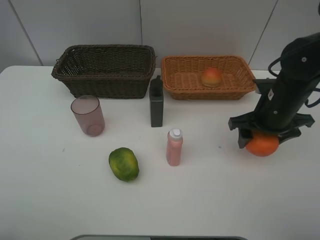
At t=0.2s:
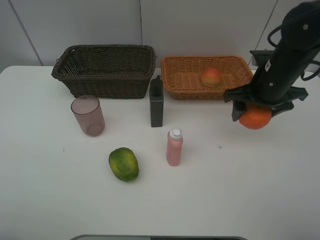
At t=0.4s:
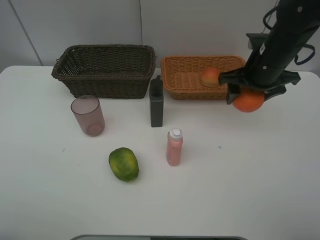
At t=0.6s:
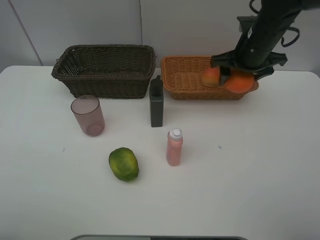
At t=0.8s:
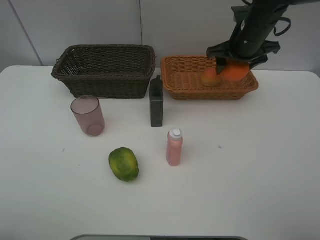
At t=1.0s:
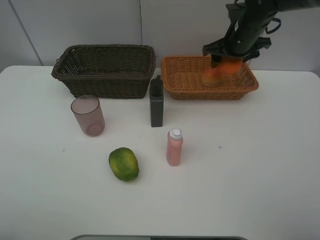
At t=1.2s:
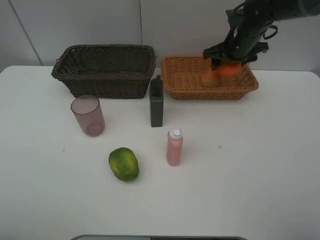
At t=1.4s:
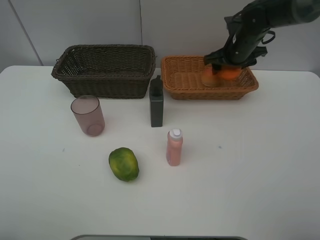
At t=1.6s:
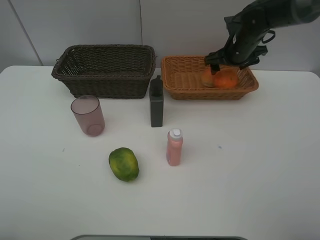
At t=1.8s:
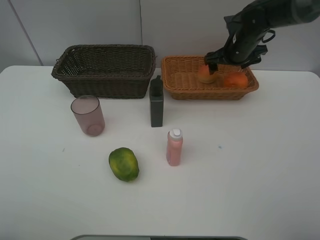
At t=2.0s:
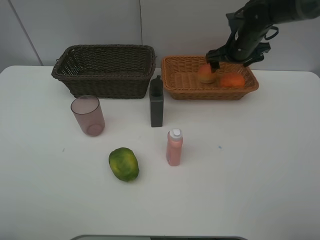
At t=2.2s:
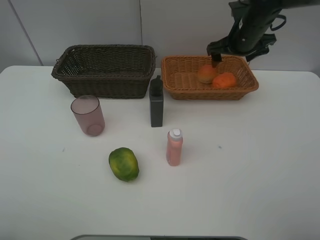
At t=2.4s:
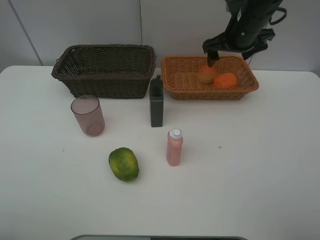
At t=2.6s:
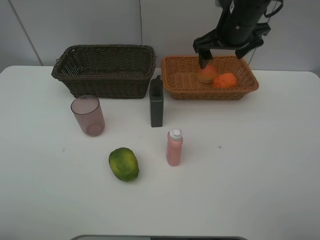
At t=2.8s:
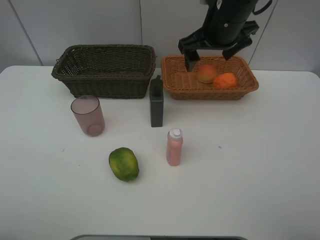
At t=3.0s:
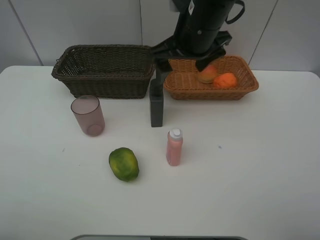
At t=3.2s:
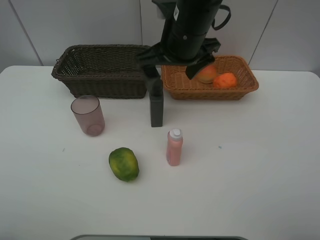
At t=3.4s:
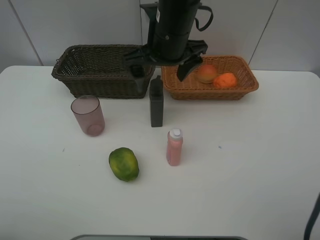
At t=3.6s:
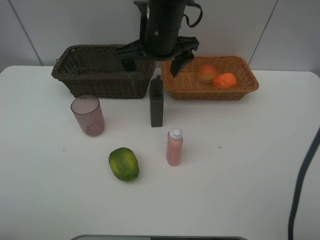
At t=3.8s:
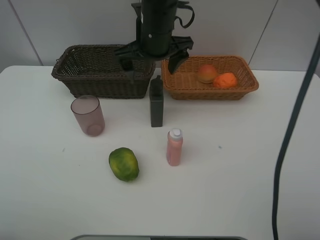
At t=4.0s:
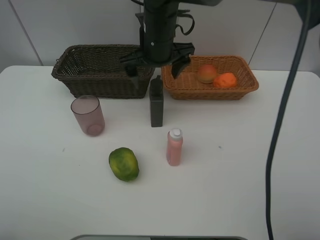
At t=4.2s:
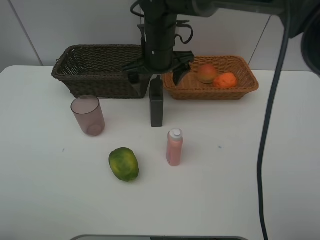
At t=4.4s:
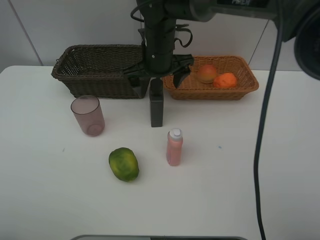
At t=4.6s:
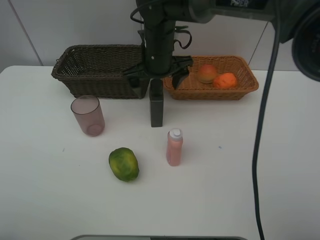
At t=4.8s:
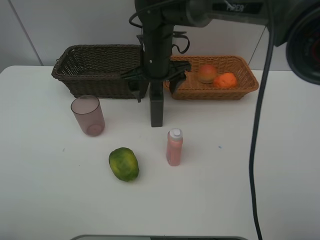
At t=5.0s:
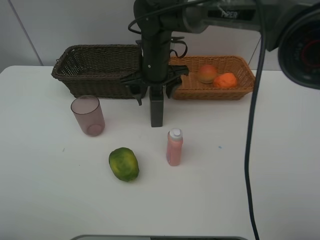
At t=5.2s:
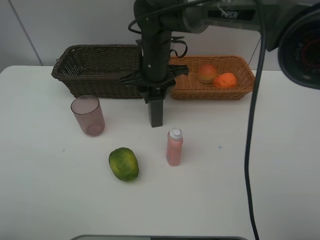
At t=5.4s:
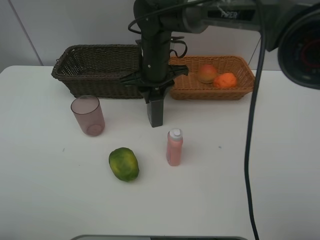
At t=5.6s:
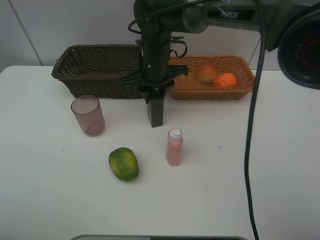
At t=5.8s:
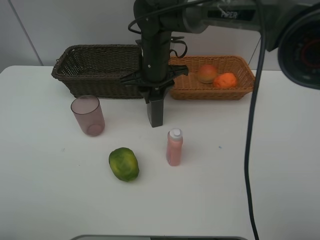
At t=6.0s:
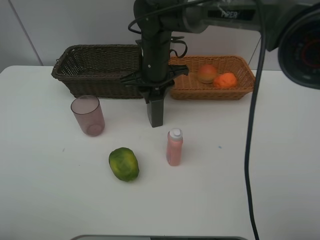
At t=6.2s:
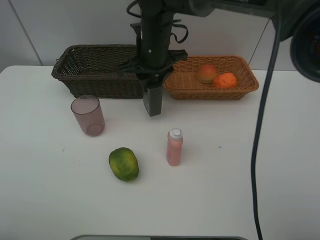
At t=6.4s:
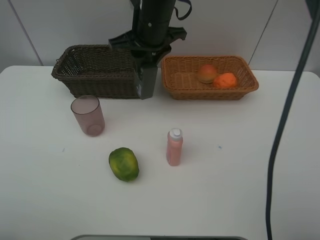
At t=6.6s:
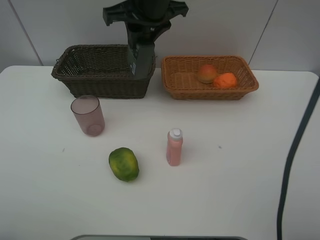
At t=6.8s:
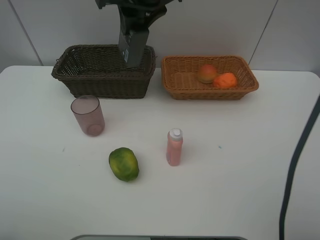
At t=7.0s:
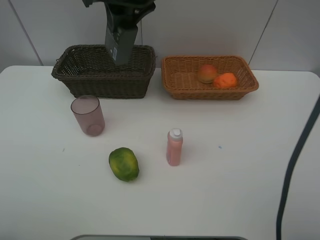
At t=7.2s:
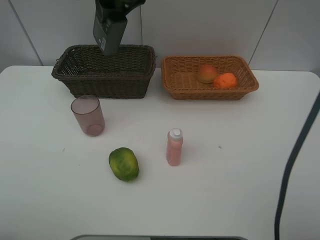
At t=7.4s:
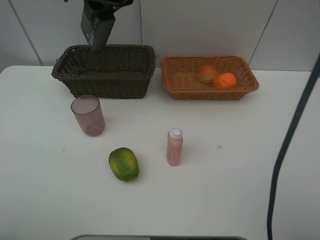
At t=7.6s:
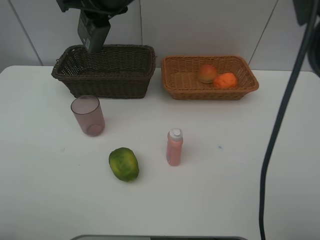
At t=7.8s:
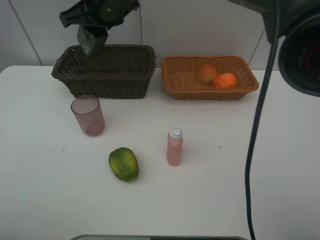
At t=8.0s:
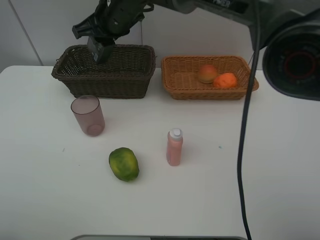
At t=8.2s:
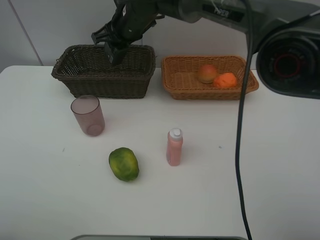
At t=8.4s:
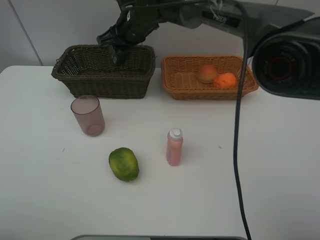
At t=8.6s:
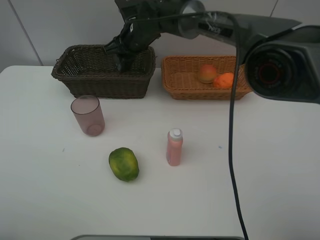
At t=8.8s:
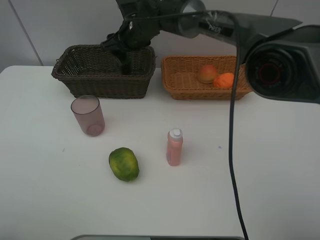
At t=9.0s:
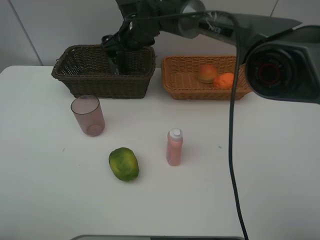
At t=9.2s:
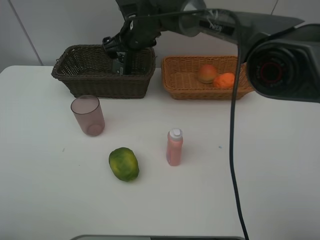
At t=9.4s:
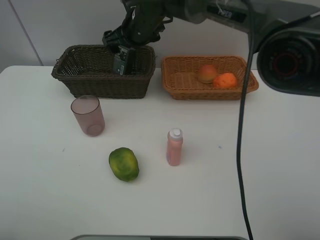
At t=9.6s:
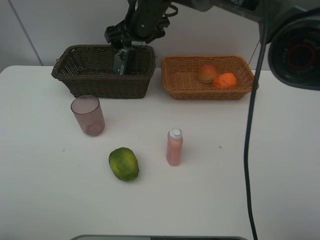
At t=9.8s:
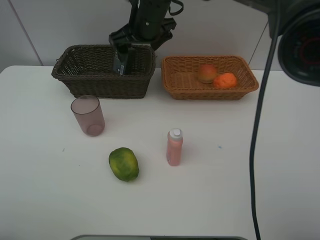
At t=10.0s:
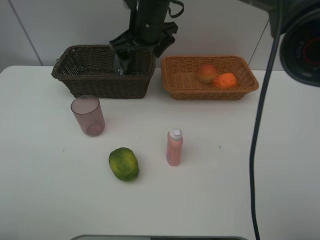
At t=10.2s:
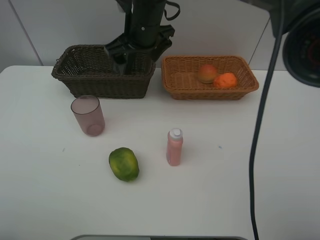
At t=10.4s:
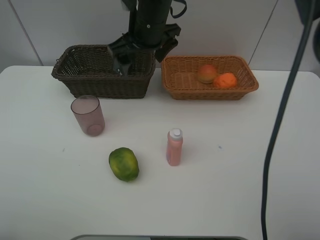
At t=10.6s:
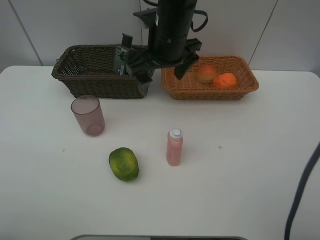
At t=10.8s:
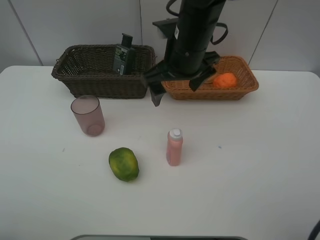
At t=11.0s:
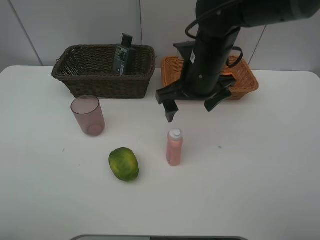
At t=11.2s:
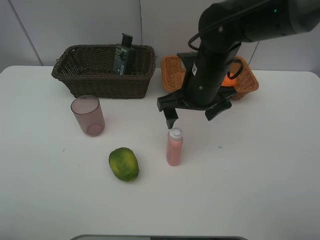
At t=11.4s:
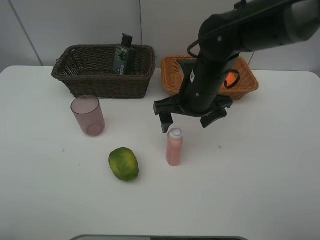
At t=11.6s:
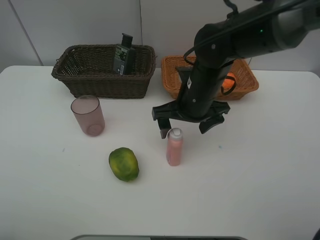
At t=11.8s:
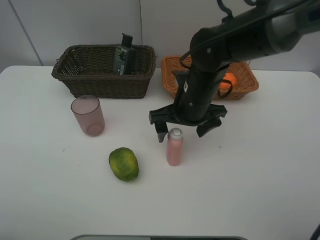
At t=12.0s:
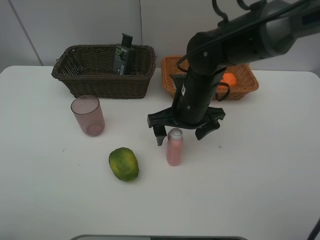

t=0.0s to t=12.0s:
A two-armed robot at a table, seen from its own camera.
Task of the whole recording: place multiple objects separately in different baskets.
t=0.0s to t=1.6s: The right gripper heads forward, covering about 20 cm.
t=1.6s to t=3.0s: The right gripper shifts about 20 cm to the left, backward and upward.
t=3.0s to t=4.4s: The right gripper is displaced downward, forward and to the left by some 10 cm.
t=4.4s to t=6.0s: The right gripper closes.
t=6.0s to t=7.6s: The right gripper travels upward and to the left by about 15 cm.
t=7.6s to t=9.0s: The right gripper travels downward and forward by roughly 15 cm, and opens its fingers.
t=9.0s to t=10.4s: The right gripper goes some 10 cm backward and upward.
t=10.4s to t=12.0s: The right gripper moves downward, backward and to the right, roughly 15 cm.

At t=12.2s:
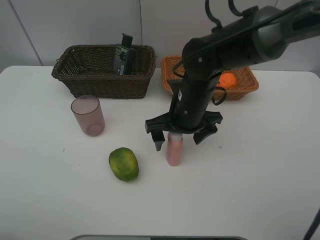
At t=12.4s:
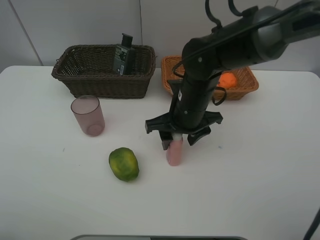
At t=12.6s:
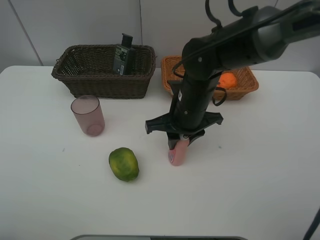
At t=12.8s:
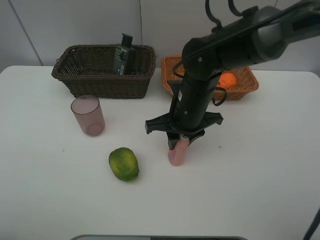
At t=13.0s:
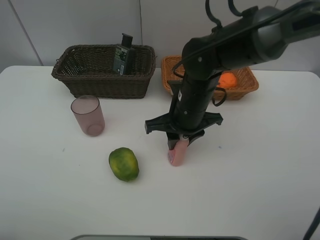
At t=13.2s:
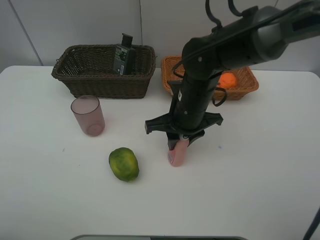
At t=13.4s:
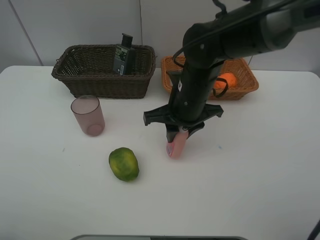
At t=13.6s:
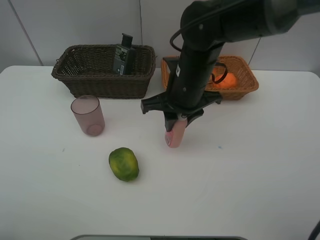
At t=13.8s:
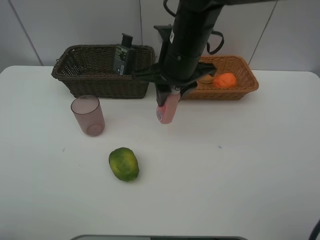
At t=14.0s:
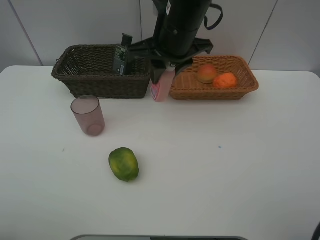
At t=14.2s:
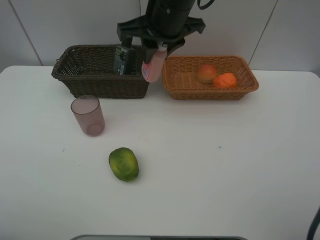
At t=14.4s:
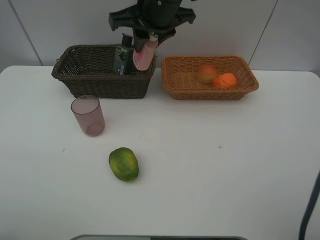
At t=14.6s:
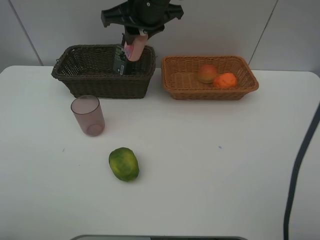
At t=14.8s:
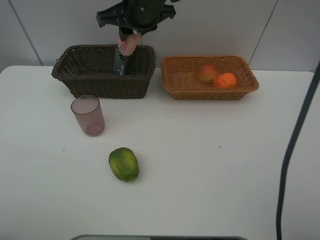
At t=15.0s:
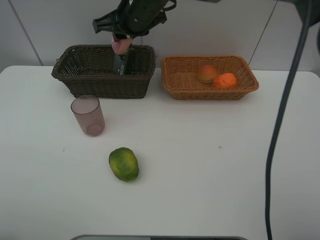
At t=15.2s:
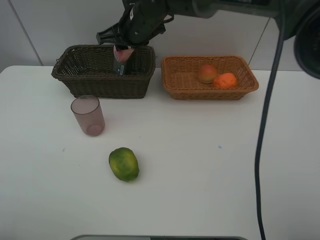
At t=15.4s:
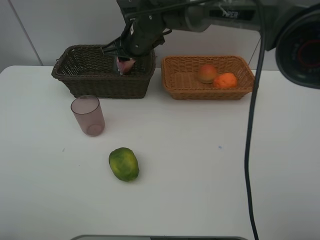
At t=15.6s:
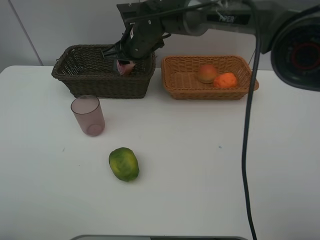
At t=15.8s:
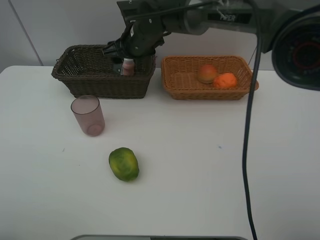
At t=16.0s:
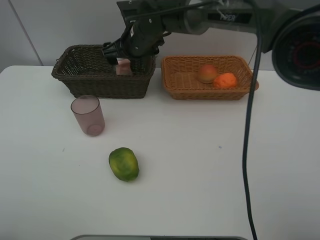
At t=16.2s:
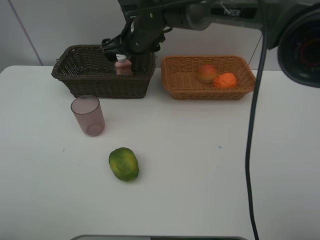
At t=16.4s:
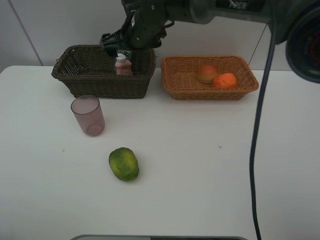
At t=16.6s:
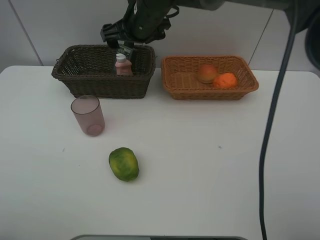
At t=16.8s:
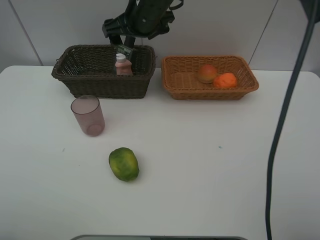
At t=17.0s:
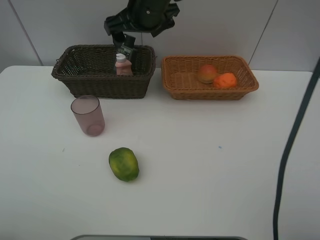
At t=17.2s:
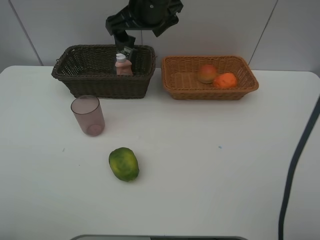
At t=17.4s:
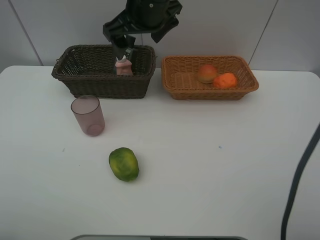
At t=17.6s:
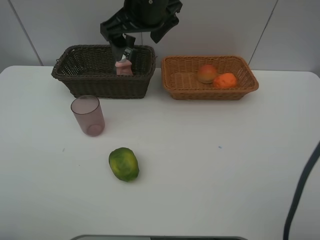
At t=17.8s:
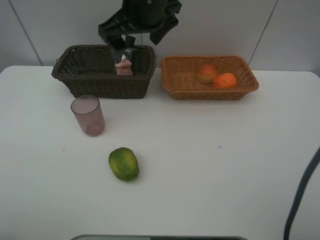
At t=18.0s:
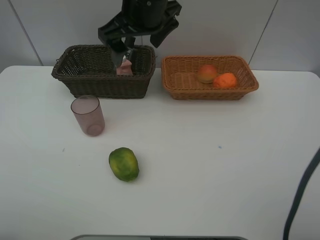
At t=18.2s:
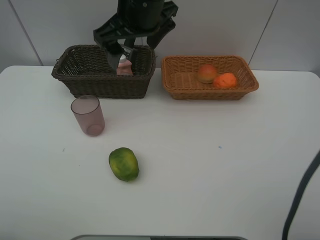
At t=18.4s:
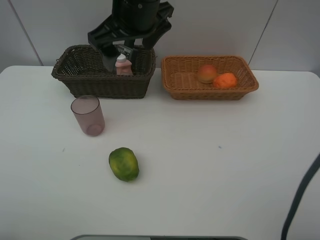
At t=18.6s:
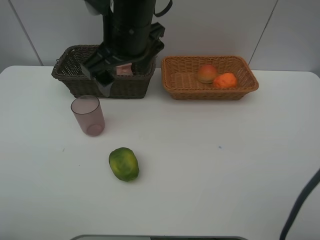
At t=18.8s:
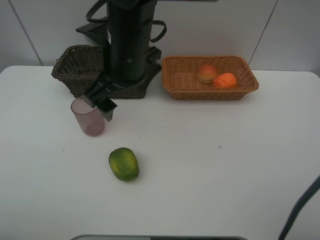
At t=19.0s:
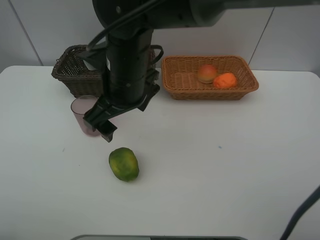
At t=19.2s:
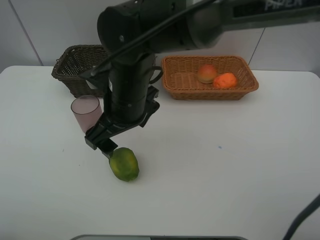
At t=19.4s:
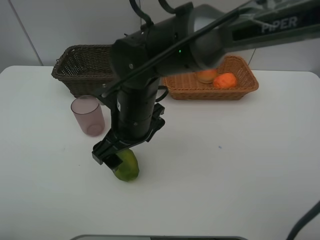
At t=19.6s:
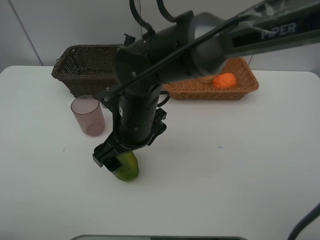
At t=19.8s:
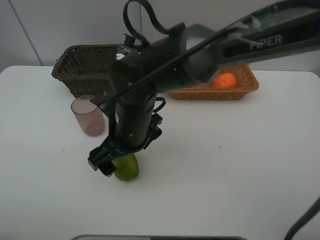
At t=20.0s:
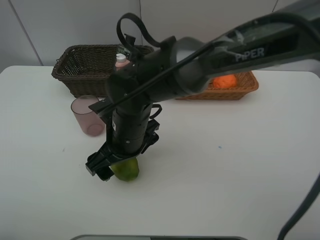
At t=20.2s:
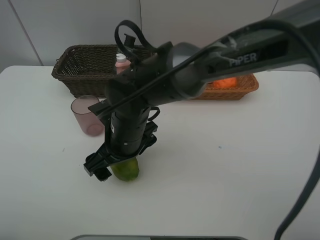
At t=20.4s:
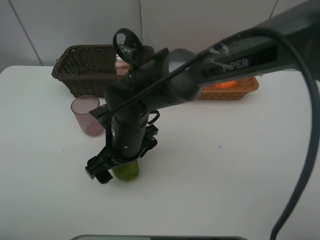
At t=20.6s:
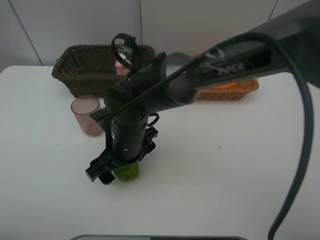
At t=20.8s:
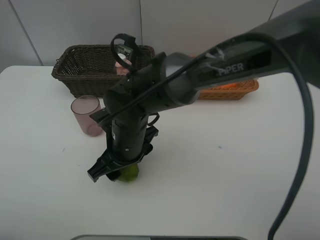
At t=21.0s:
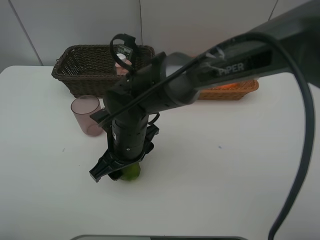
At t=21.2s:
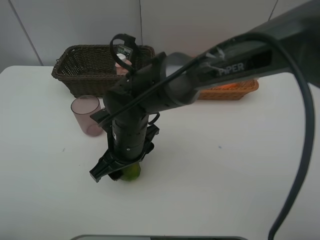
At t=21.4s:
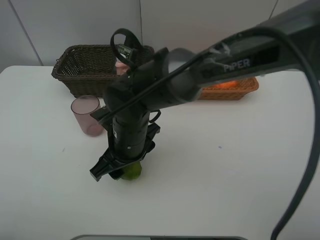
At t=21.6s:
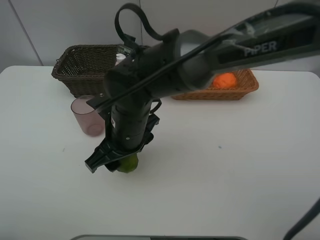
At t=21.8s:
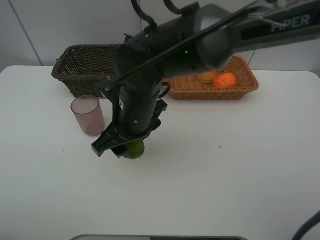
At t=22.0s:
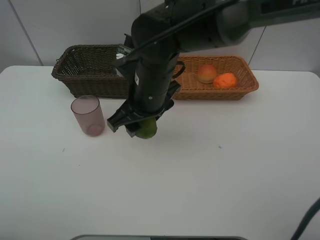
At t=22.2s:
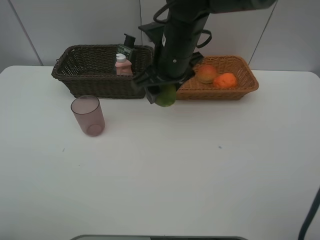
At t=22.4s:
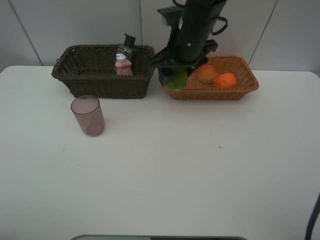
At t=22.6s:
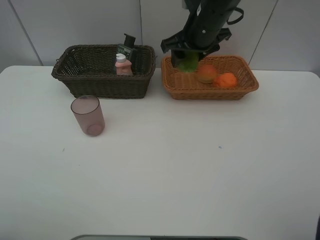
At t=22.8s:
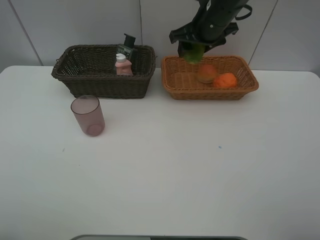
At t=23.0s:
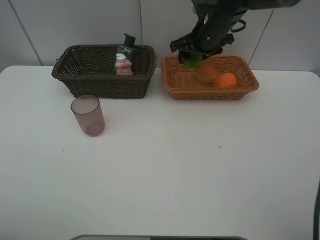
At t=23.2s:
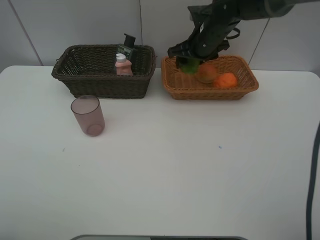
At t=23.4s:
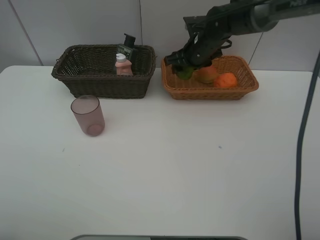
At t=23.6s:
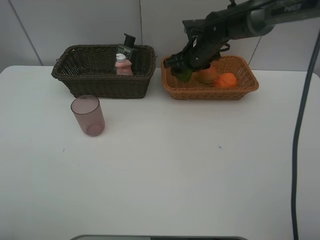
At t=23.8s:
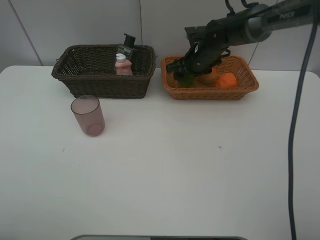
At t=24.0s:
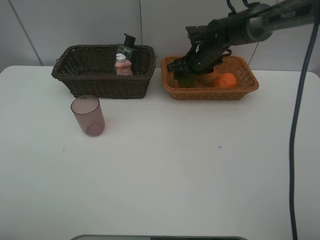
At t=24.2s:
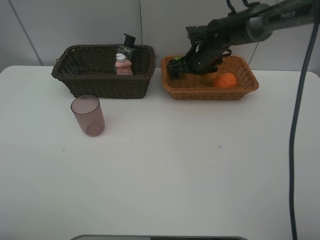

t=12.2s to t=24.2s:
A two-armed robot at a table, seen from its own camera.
Task of the whole recording: place multiple objects separately in different baskets.
t=12.2s to t=13.8s: The right gripper goes approximately 10 cm upward, and closes.
t=13.8s to t=15.2s: The right gripper heads forward and to the left, covering about 15 cm.
t=15.2s to t=16.6s: The right gripper opens.
t=16.6s to t=18.2s: The right gripper shifts roughly 10 cm backward and upward.
t=18.2s to t=19.8s: The right gripper moves downward and backward, some 20 cm.
t=19.8s to t=21.2s: The right gripper closes.
t=21.2s to t=22.6s: The right gripper heads forward, to the right and upward, covering approximately 25 cm.
t=22.6s to t=24.2s: The right gripper travels downward and forward by about 15 cm, and opens its fingers.
